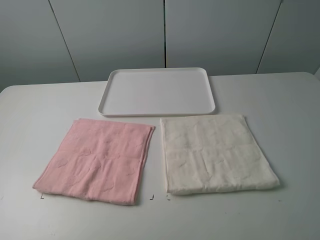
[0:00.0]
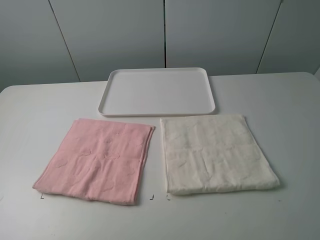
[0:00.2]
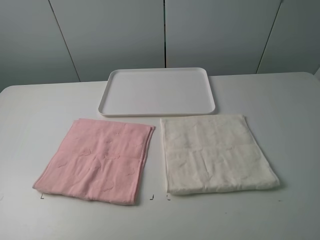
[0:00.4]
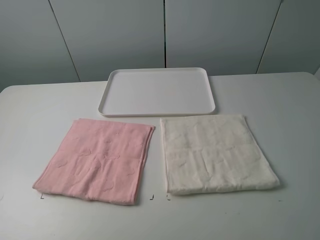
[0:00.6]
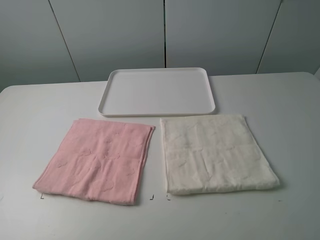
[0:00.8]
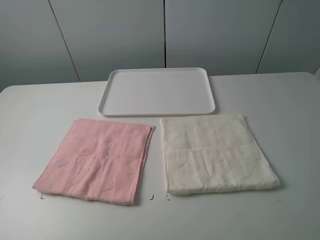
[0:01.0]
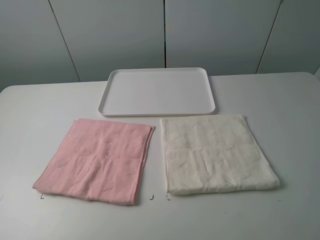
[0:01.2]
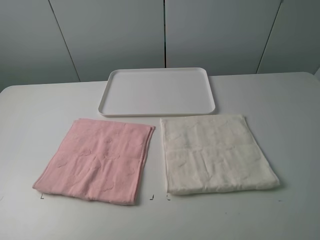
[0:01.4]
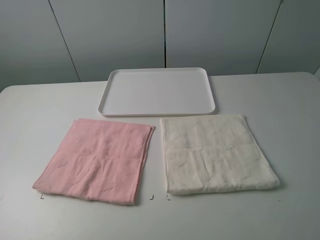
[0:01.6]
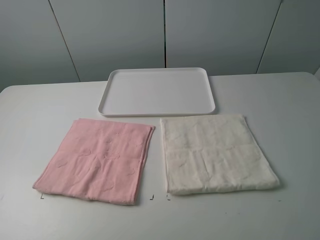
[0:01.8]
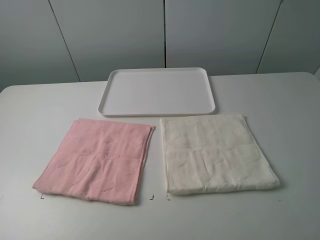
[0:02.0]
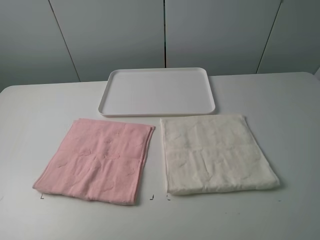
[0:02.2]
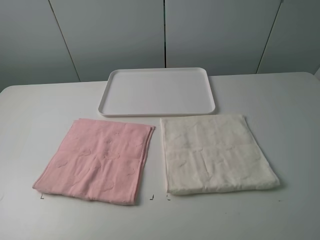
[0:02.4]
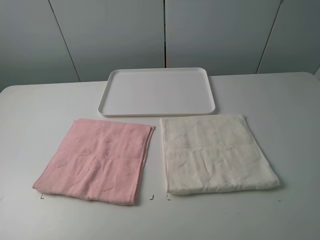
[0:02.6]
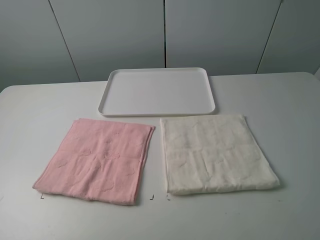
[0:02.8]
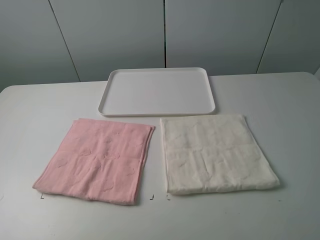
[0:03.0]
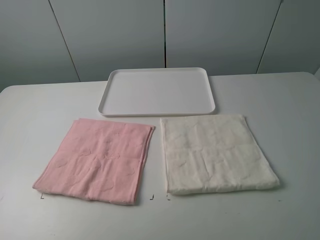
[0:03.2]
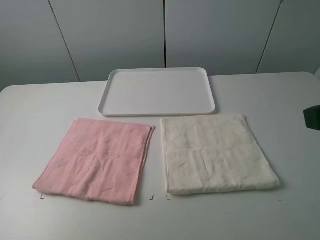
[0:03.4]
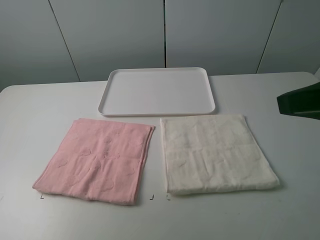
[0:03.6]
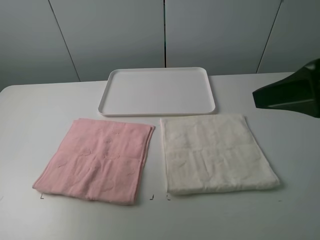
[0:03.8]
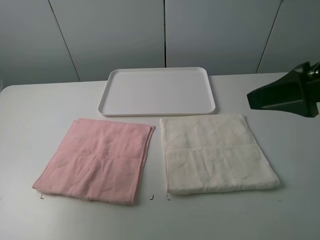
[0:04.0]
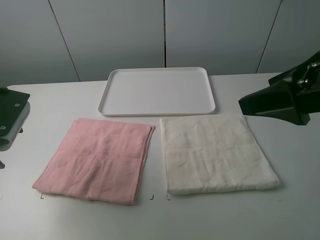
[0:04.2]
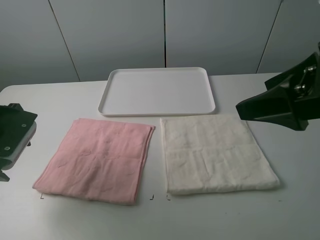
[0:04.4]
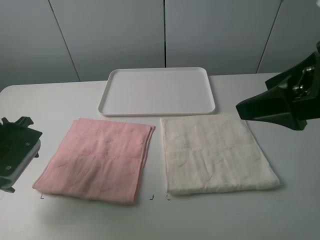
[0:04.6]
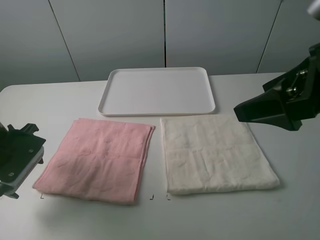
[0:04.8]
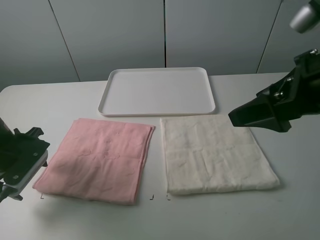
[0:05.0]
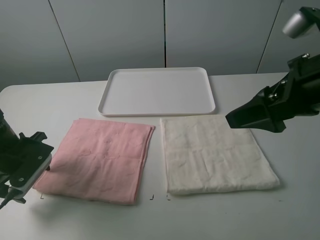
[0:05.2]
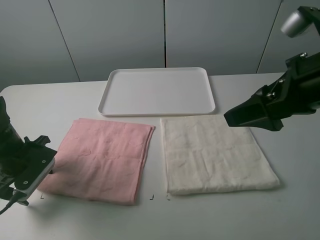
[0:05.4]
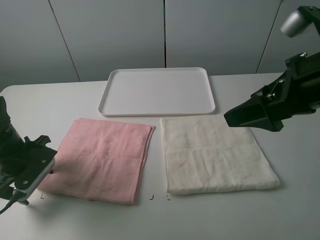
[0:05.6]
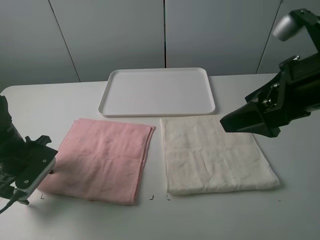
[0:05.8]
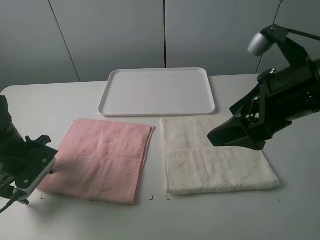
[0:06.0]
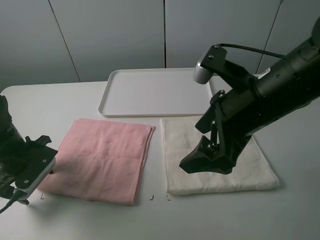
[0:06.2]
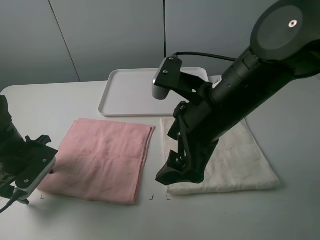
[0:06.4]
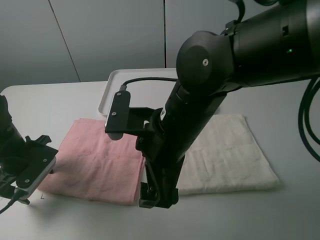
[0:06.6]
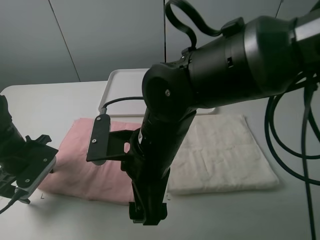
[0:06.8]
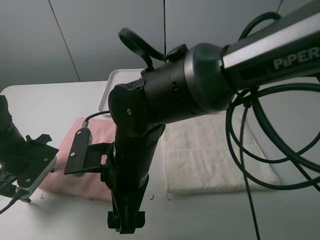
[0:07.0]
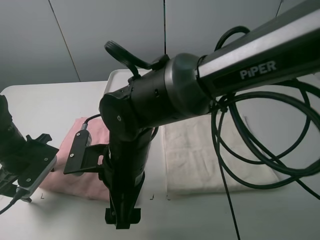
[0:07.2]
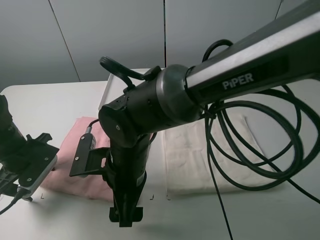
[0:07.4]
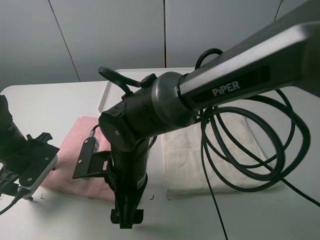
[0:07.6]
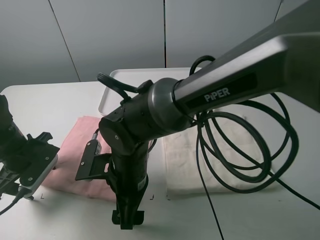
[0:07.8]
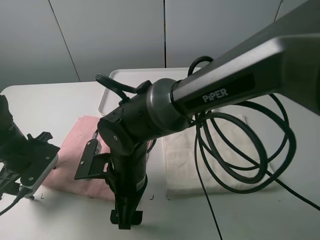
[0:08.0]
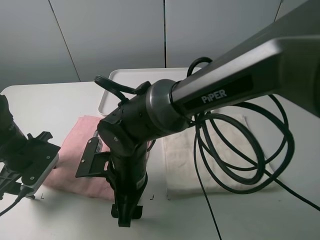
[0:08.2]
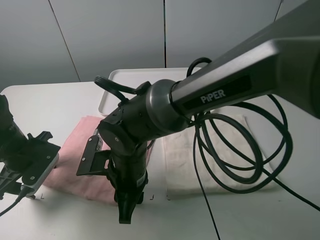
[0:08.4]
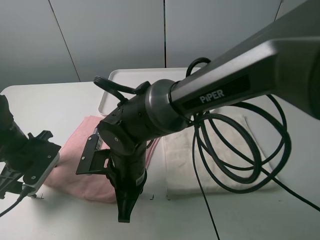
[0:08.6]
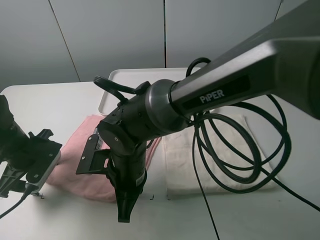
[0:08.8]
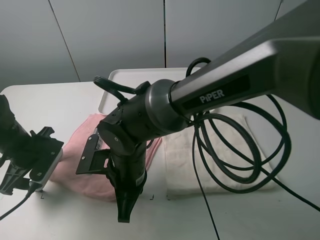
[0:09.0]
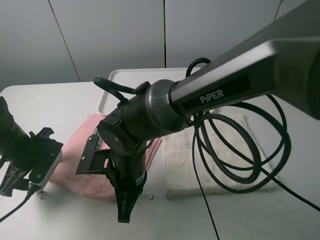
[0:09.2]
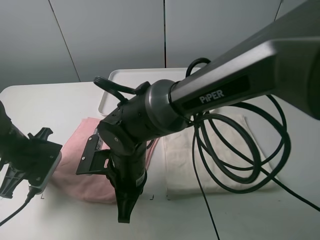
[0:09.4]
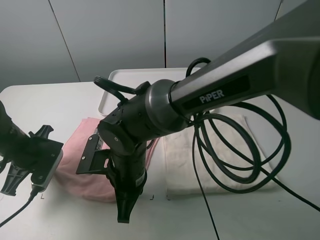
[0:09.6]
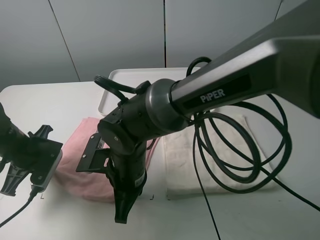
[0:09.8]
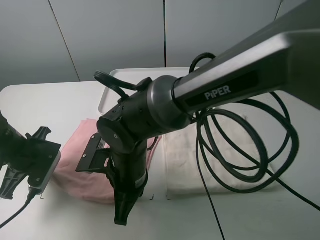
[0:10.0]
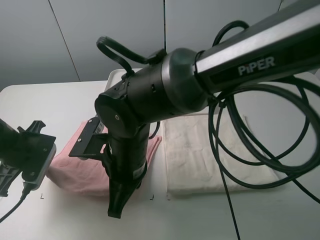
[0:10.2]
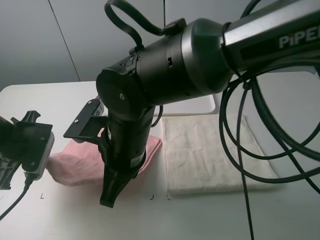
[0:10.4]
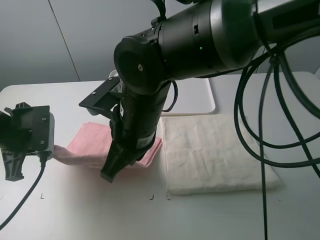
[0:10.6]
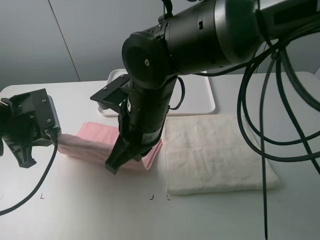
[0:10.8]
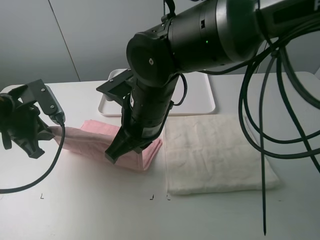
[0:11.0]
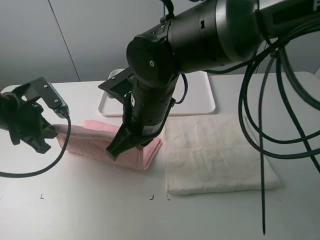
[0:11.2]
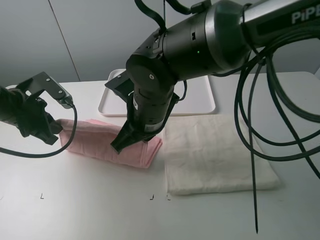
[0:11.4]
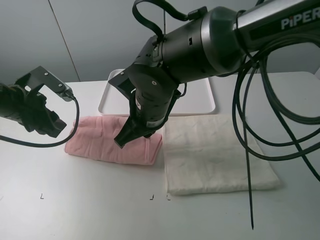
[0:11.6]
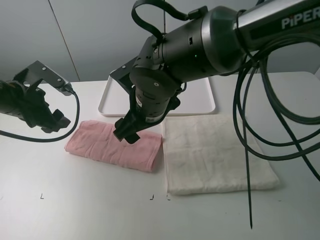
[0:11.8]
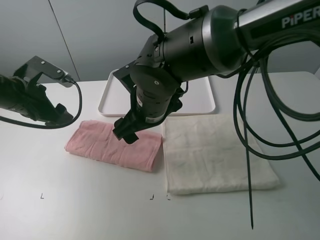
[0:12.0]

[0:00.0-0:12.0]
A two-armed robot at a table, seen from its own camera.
Task of the whole recording: fold one of the towels by two grippers and place it on the tray,then fold another towel by two grippers and place it on the folded towel.
Step, 0.0 to 9.6 s: Grasp the pink towel with the left gripper.
Step, 9.8 to 11.8 s: Fold the pink towel upwards with the left gripper.
0.0 to 1.6 s: The two grippers keep their place.
3.0 to 4.4 s: The right gripper heads forward, covering approximately 15 cm, while the left gripper goes roughly 25 cm forward and downward.
4.4 to 6.0 s: The right gripper travels downward by some 5 cm, while the left gripper heads downward, covering approximately 10 cm.
6.0 to 7.6 s: The right gripper shifts about 25 cm to the left and downward.
7.6 to 9.0 s: The right gripper closes its fingers.
9.0 to 10.4 s: The left gripper is displaced upward by some 5 cm, and closes up, while the right gripper goes roughly 10 cm upward.
10.4 to 12.0 s: The two grippers go about 5 cm forward. The right gripper opens up, while the left gripper opens up.

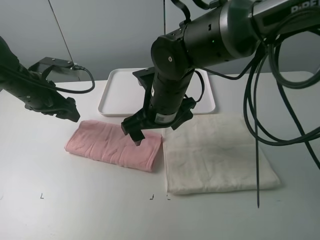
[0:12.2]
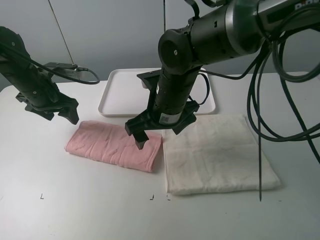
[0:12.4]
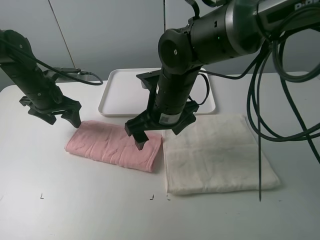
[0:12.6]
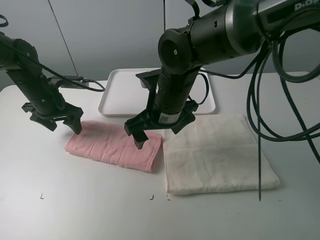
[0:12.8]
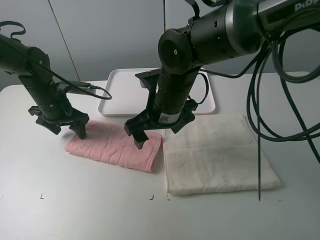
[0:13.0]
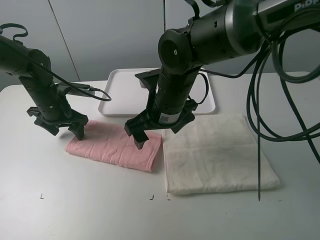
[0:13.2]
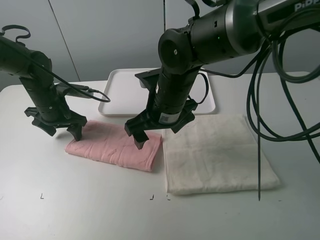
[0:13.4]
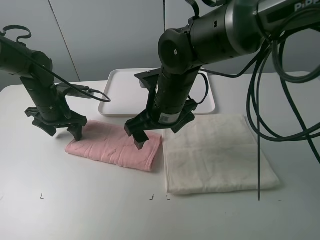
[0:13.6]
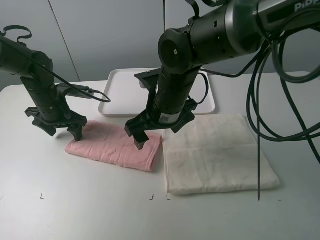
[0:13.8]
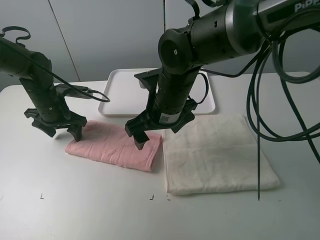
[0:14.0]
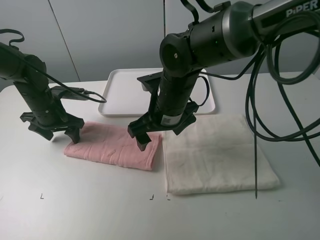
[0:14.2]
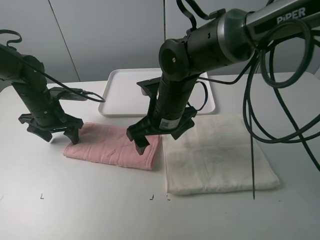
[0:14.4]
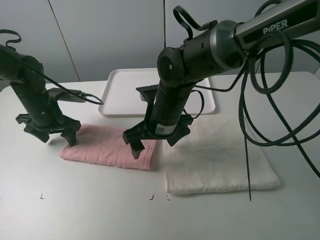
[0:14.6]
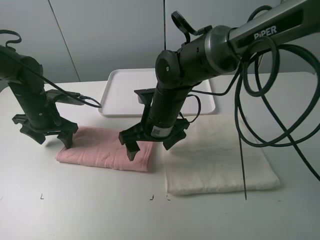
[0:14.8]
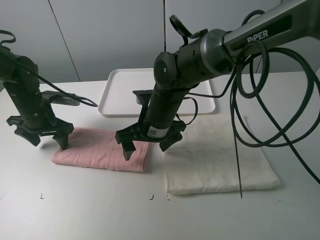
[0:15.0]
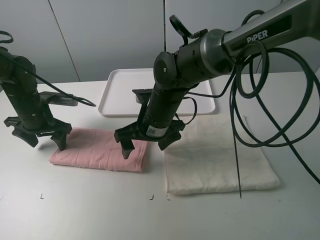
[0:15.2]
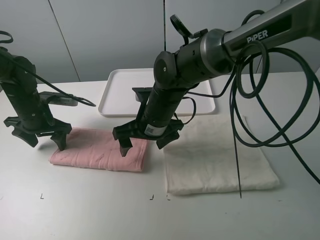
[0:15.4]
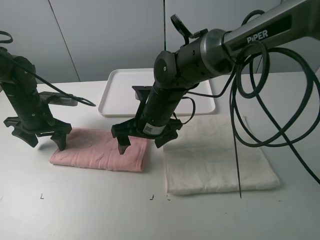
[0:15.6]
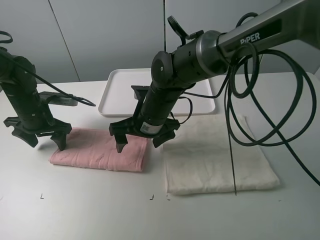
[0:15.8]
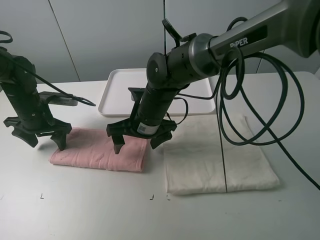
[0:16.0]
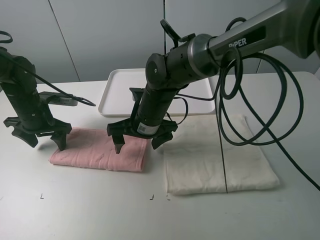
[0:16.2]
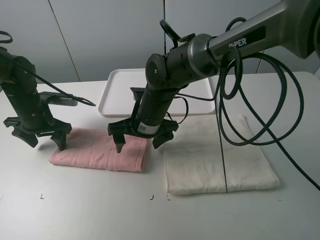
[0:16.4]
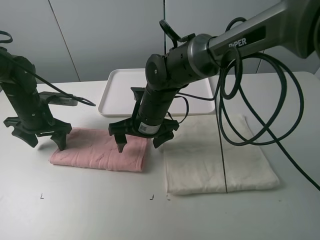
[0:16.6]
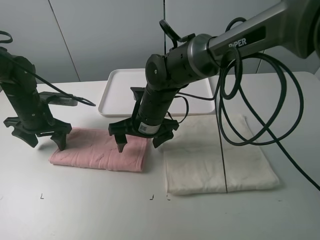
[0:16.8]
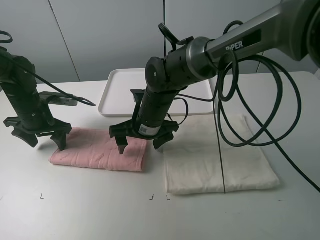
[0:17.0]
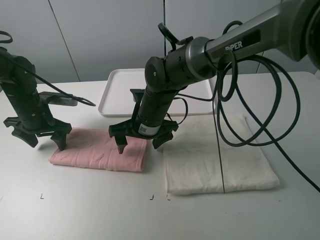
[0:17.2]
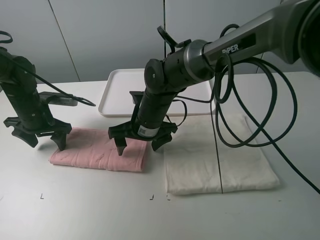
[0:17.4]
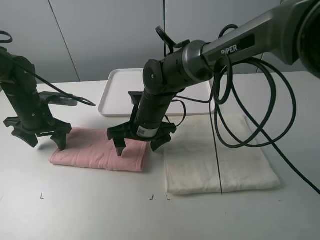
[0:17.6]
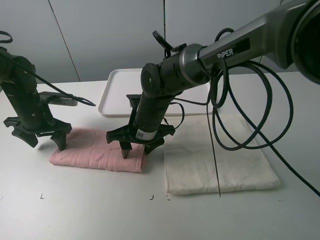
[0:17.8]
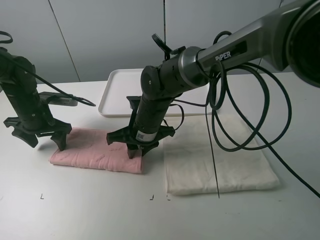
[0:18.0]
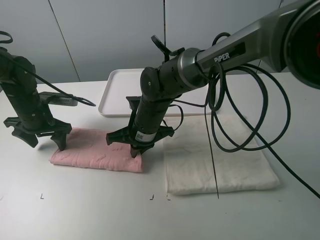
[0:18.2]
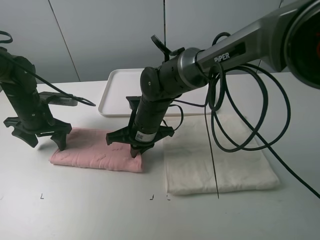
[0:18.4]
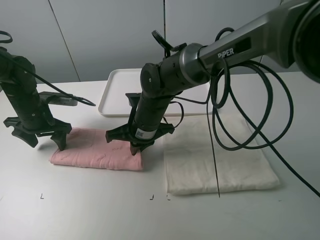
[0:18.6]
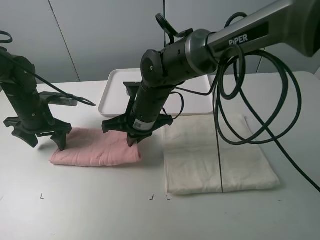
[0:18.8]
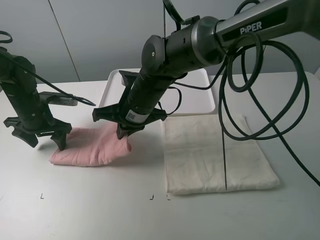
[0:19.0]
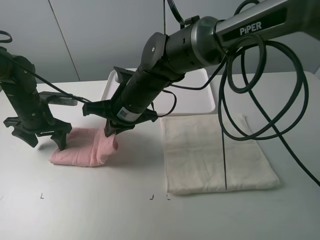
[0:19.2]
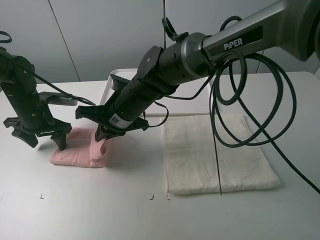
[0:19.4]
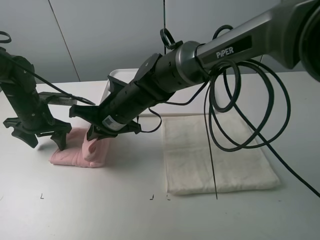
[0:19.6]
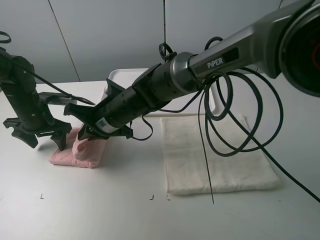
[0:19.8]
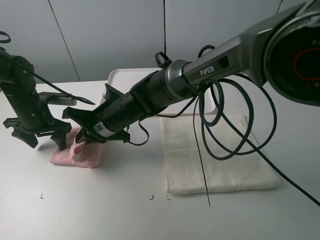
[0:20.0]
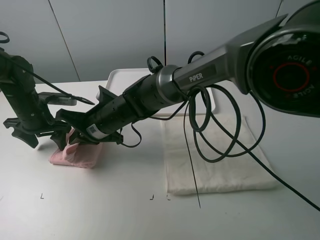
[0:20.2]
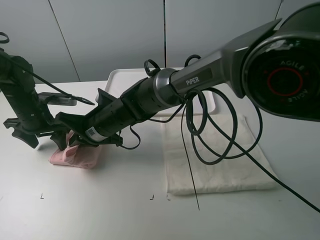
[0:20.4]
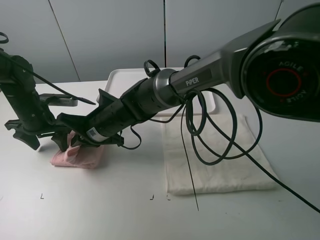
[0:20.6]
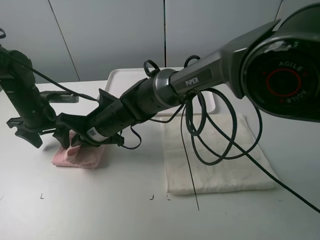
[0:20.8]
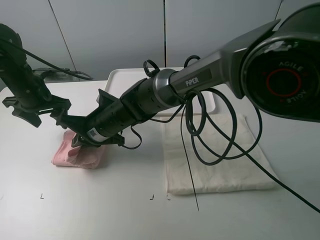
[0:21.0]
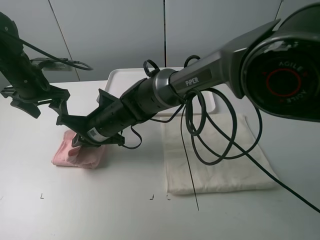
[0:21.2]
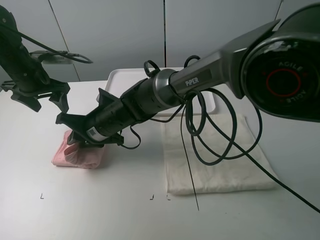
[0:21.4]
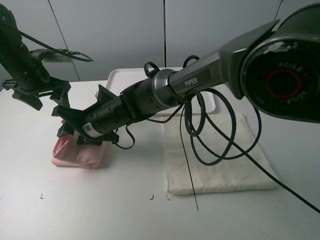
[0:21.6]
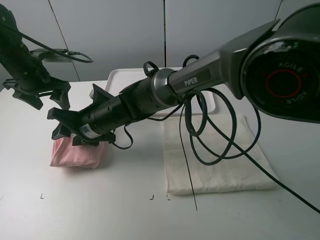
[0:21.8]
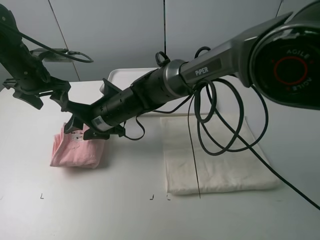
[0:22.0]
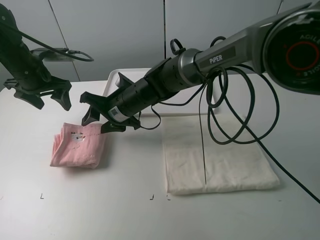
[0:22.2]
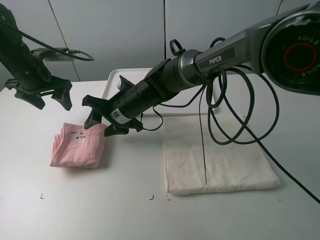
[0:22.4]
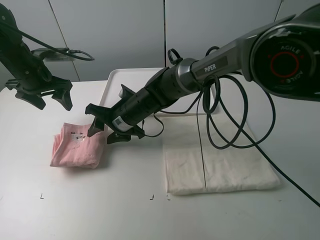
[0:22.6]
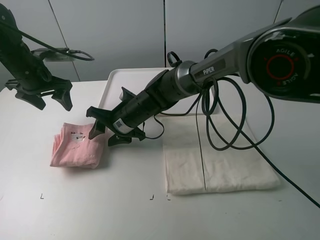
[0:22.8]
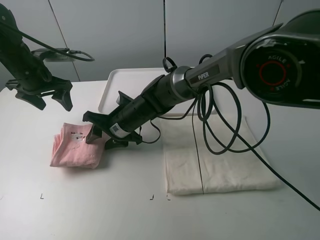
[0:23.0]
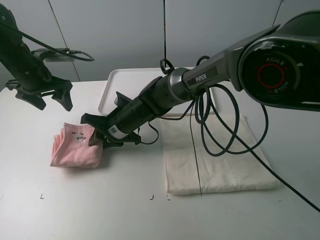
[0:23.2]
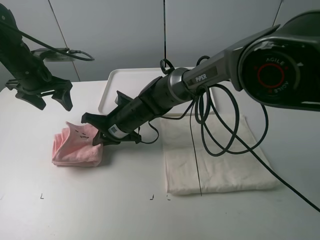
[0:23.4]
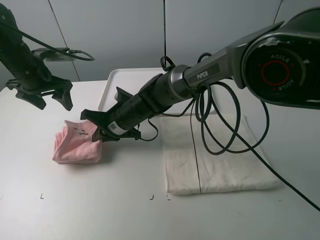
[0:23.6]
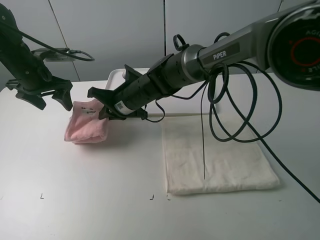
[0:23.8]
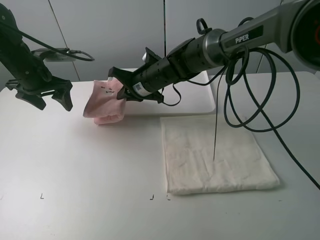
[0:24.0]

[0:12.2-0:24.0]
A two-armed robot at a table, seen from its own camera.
Task of the whole recording: fold one of the towels by two grippers and place it on the tray,then fold another towel by two grippers and place it on the folded towel.
Step, 12.2 to 14.0 s: Press the pink towel with the left gripper.
Step, 14.2 to 18.2 s: Grasp the pink towel with the right gripper.
Step, 18.4 to 21.8 s: Fold the pink towel from right to left with right gripper.
Step, 22.0 to 23.6 s: Grasp the pink towel with the right gripper.
12.2 to 13.6 s: The left gripper shifts approximately 5 cm downward.
13.6 to 15.2 s: The right gripper shifts by some 5 cm.
15.2 to 16.6 s: The grippers stay close to where they were, moving slightly.
16.6 to 18.2 s: The right gripper closes.
18.2 to 19.6 s: The right gripper moves some 5 cm.
19.6 to 21.0 s: The left gripper heads upward, covering some 5 cm; the right gripper moves about 5 cm.
21.0 to 22.6 s: The right gripper shifts by about 5 cm, and opens up.
22.6 to 24.0 s: The right gripper shifts some 10 cm forward and to the right, and closes.
